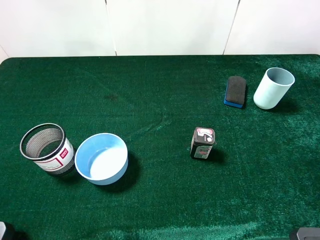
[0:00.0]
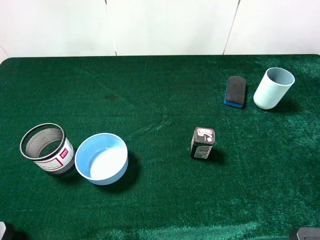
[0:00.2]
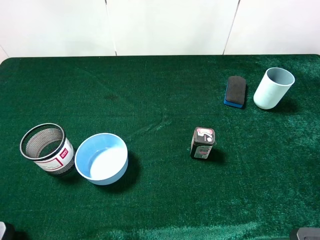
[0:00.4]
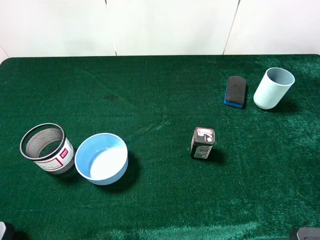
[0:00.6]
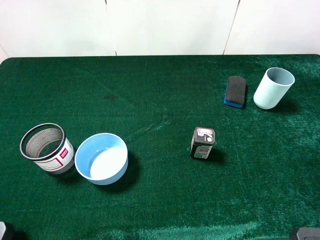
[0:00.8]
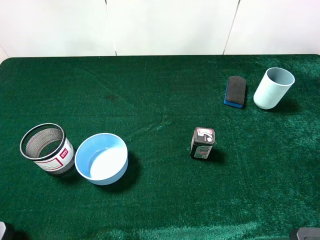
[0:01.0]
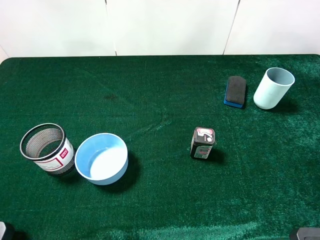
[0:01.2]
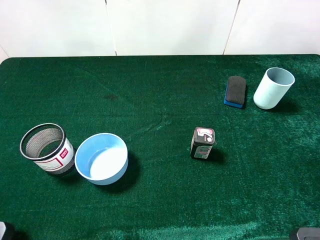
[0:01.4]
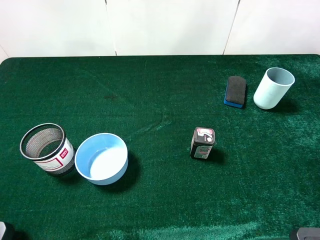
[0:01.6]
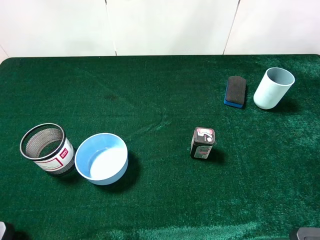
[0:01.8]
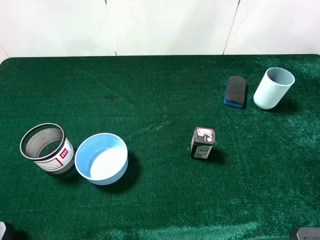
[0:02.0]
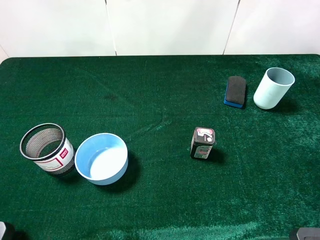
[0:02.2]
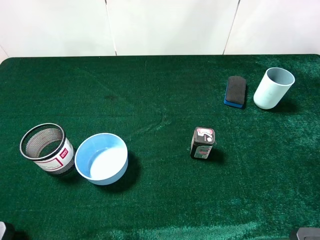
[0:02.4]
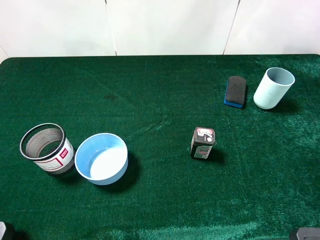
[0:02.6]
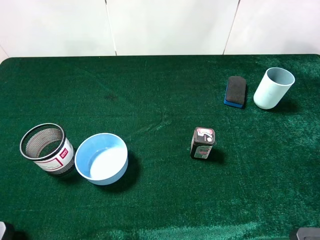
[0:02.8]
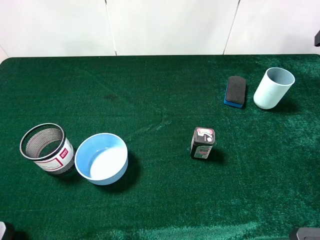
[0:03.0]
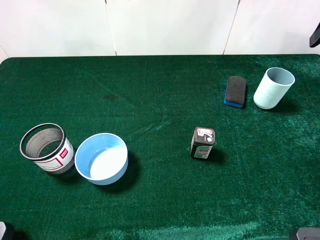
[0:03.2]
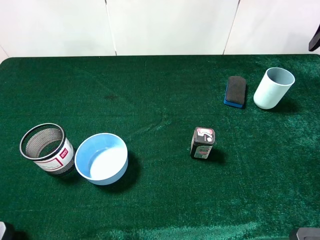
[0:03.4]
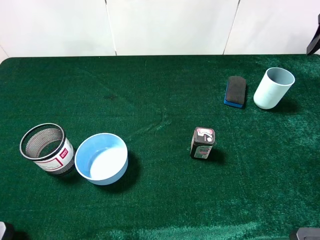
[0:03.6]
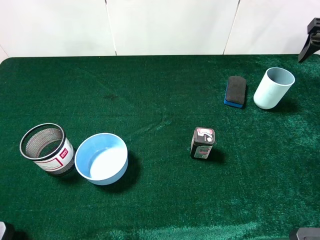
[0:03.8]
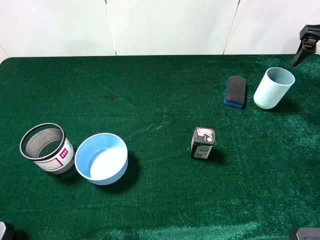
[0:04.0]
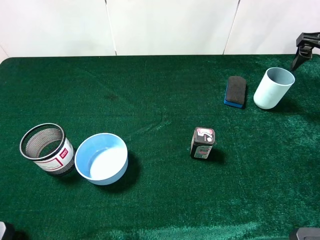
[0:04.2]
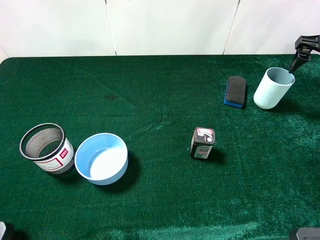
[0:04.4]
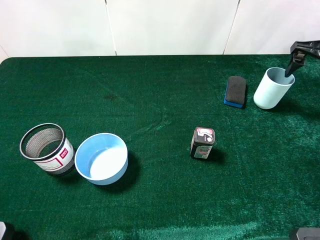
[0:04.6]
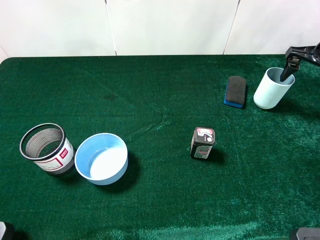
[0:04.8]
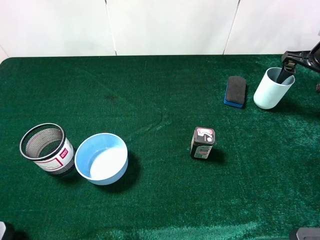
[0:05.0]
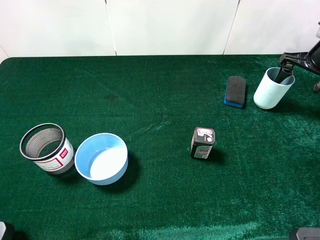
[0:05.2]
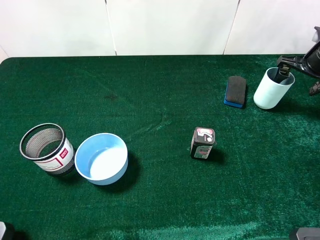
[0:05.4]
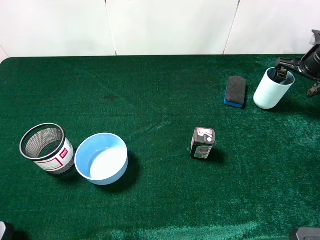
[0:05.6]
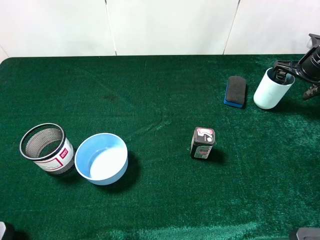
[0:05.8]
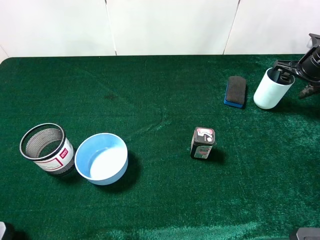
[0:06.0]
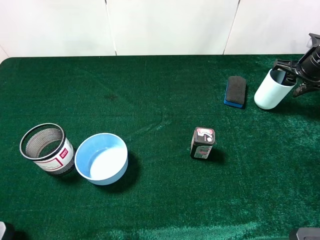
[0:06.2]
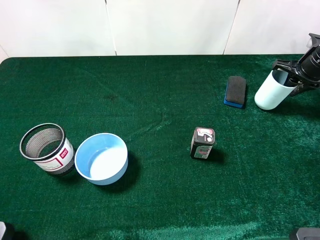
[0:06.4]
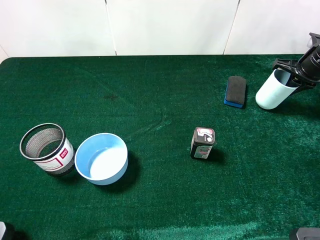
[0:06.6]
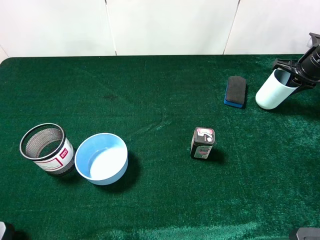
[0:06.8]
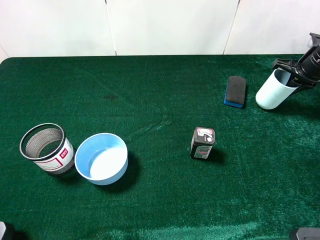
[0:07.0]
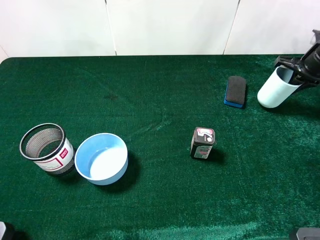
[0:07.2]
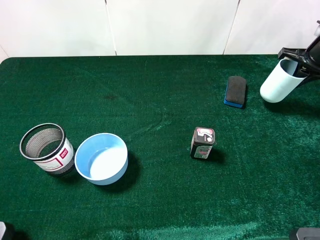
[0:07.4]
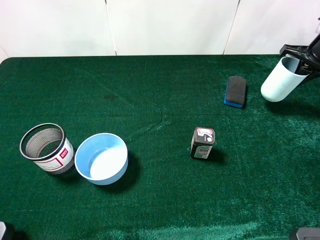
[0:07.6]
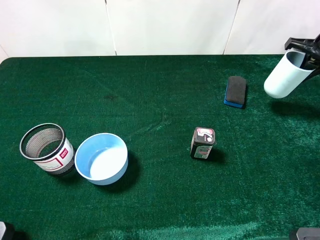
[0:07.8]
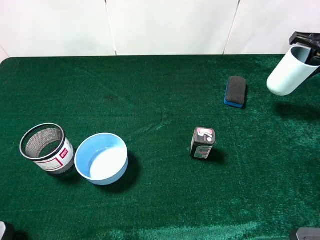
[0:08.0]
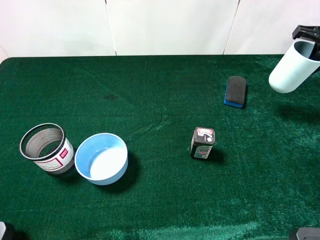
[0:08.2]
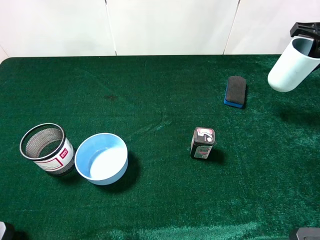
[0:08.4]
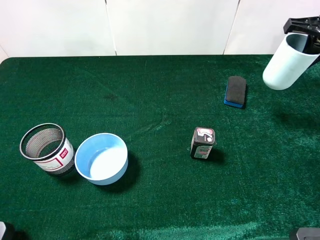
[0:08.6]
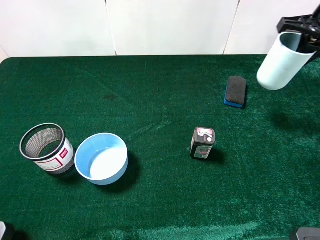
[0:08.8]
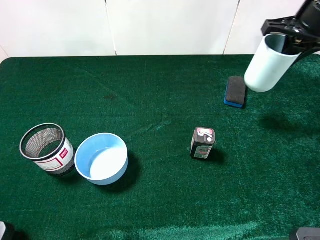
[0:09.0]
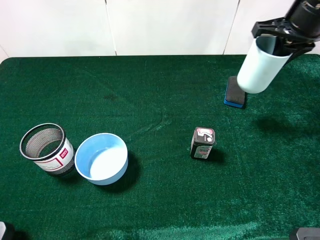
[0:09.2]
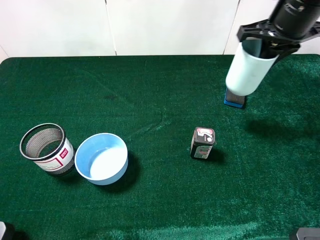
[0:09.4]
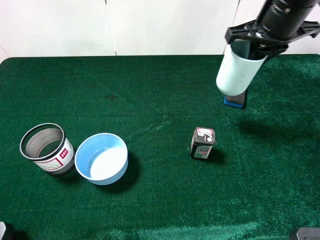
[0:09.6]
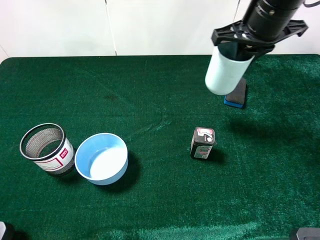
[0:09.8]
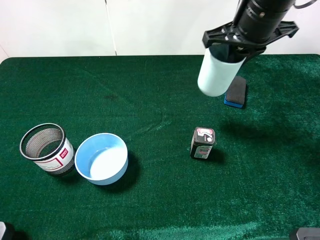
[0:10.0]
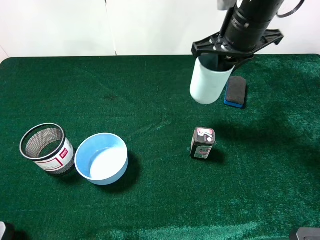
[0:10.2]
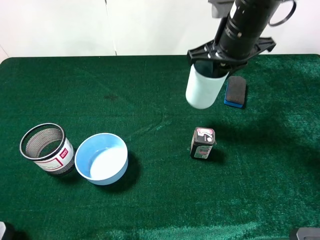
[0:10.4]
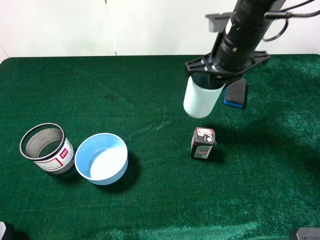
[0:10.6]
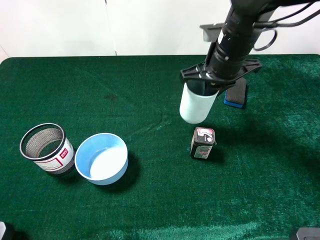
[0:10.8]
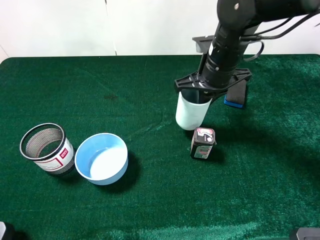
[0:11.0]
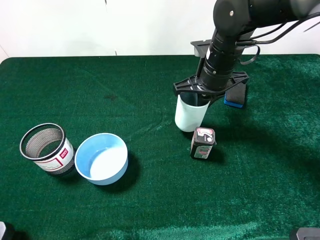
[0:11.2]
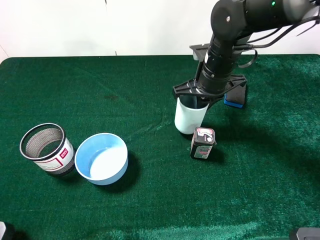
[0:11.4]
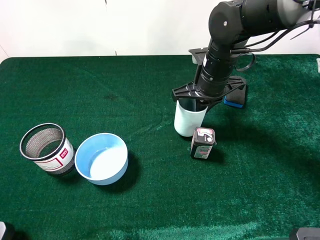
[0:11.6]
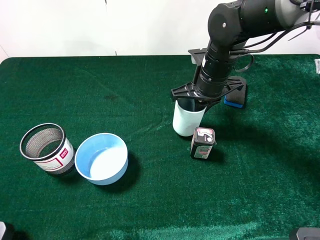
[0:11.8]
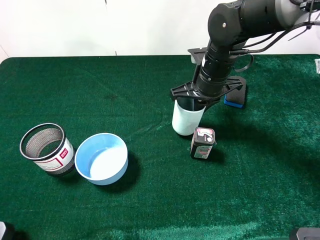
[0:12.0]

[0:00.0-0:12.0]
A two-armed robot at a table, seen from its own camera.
Task of the whole recording: the gripper move the object.
3.0 to 4.4 s: The right gripper moves downward, forward and to the right, about 15 cm.
4.4 to 6.0 s: The right gripper goes about 10 cm downward.
6.0 to 7.6 s: The right gripper closes.
7.6 to 9.0 s: The right gripper travels to the left and upward by about 15 cm.
9.0 to 10.4 s: The right gripper heads to the left, covering roughly 15 cm.
10.4 to 12.0 s: The right gripper travels downward by approximately 10 cm.

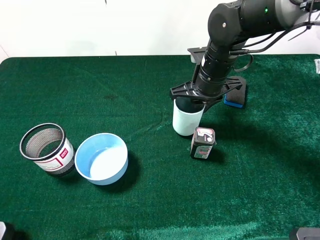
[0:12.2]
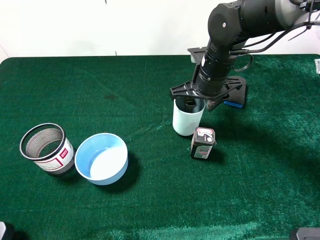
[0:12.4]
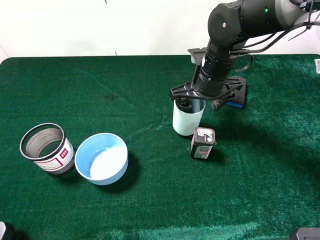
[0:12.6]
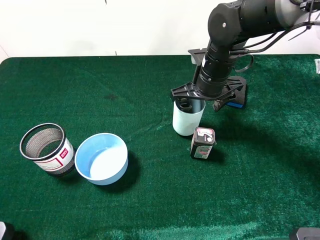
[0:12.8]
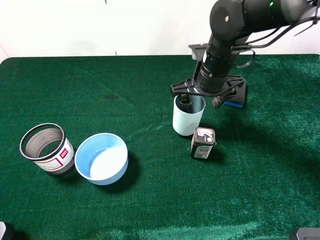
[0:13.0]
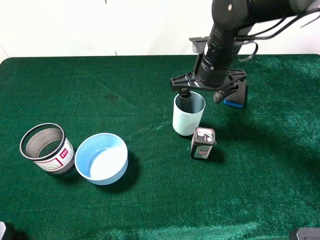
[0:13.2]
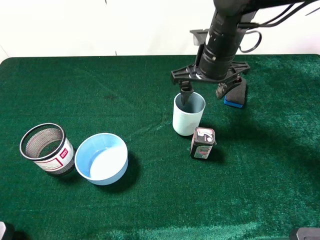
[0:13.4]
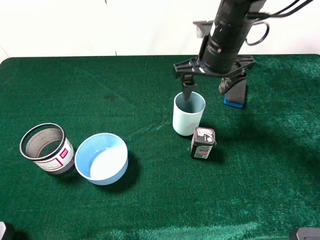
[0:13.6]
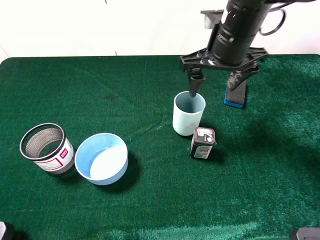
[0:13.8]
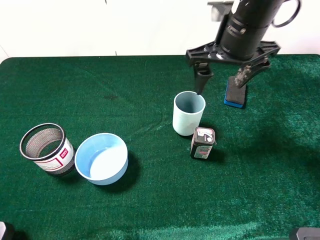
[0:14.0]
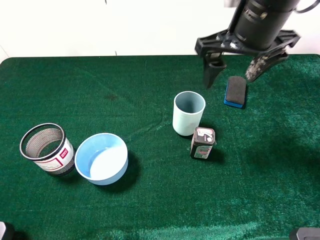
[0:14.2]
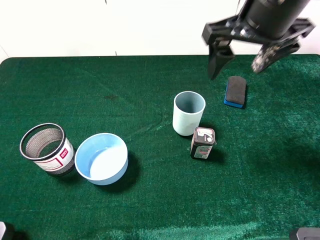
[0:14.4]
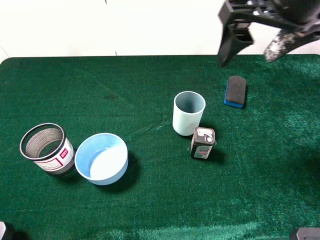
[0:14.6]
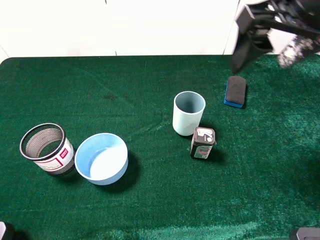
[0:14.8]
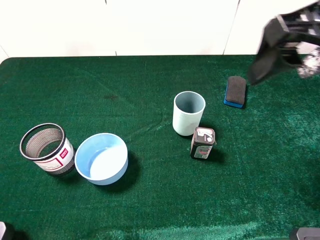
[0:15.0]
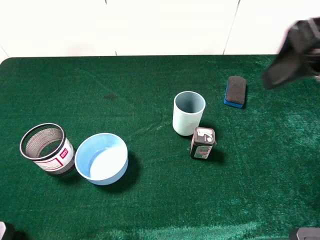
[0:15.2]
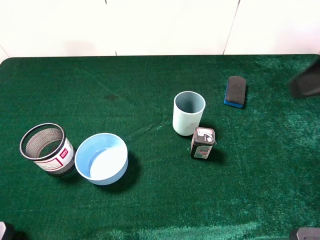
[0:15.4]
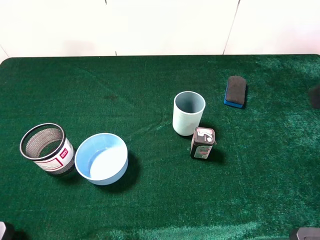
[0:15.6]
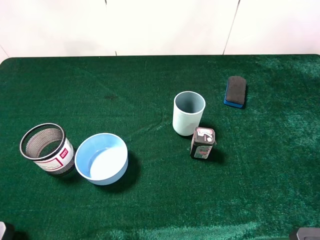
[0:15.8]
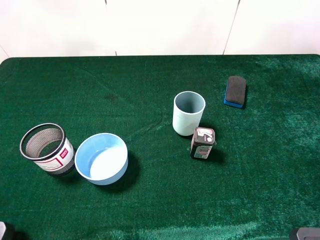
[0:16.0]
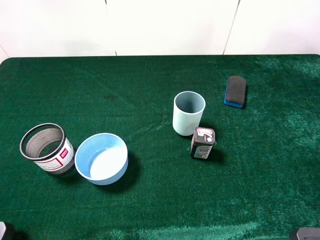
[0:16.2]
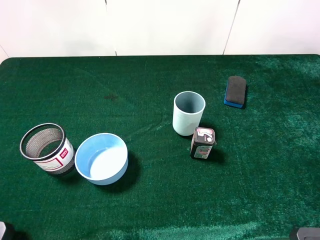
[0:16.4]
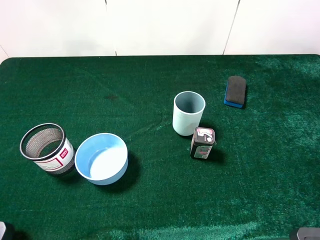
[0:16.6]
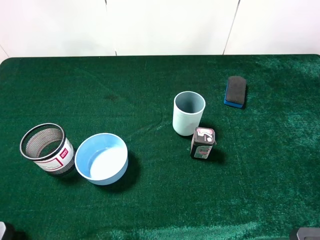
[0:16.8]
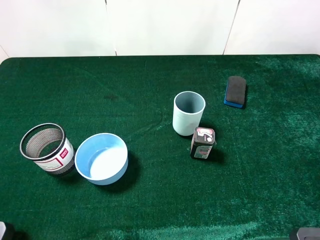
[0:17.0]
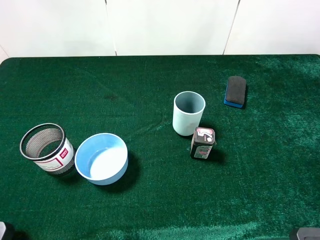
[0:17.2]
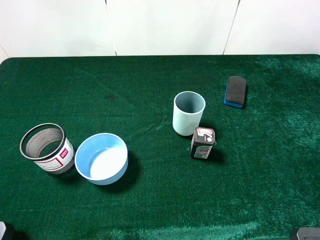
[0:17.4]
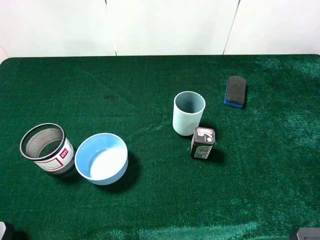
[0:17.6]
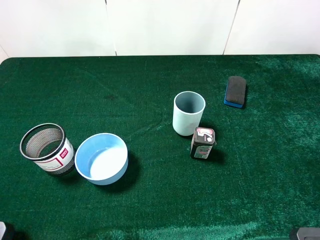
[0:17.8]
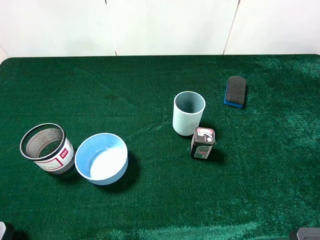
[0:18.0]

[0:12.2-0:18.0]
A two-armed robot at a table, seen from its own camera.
Task of the whole recording: the gripper move the object.
12.2 to 13.6 s: The right gripper heads upward, covering some 5 cm, and opens up.
13.6 to 15.0 s: The right gripper goes approximately 20 cm backward, upward and to the right.
15.0 to 16.6 s: The right gripper heads backward and to the right, covering about 20 cm.
16.6 to 18.0 s: Neither gripper changes place.

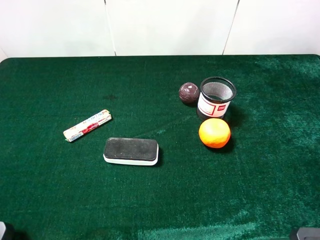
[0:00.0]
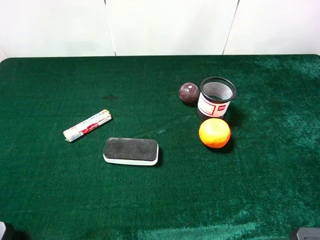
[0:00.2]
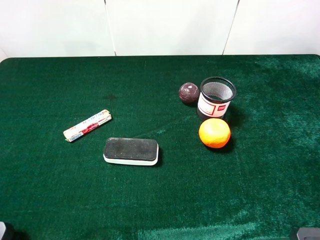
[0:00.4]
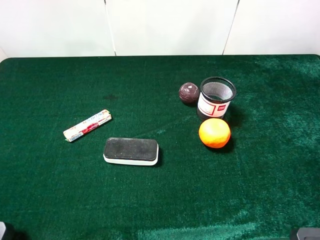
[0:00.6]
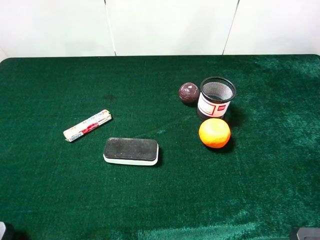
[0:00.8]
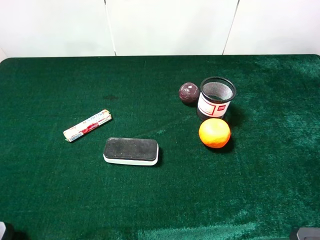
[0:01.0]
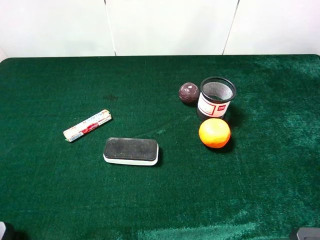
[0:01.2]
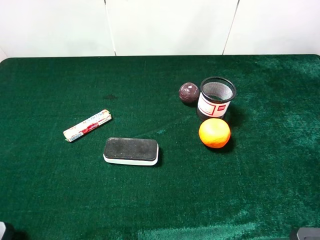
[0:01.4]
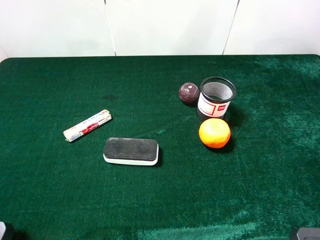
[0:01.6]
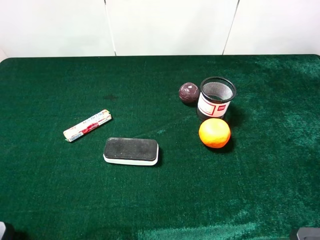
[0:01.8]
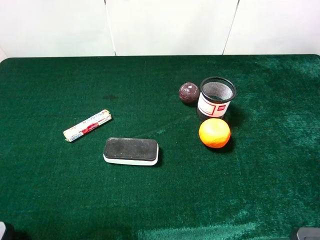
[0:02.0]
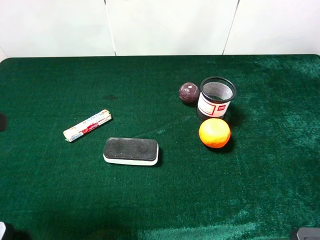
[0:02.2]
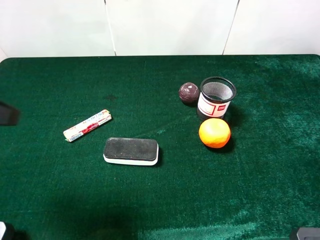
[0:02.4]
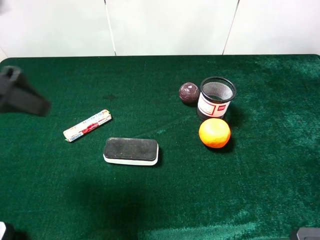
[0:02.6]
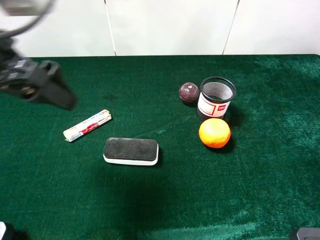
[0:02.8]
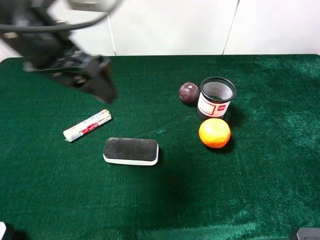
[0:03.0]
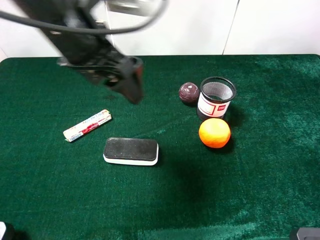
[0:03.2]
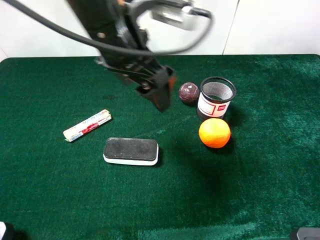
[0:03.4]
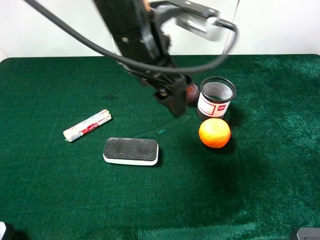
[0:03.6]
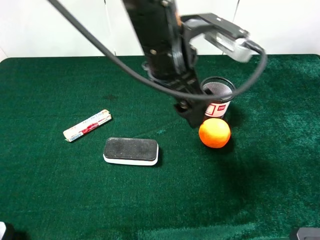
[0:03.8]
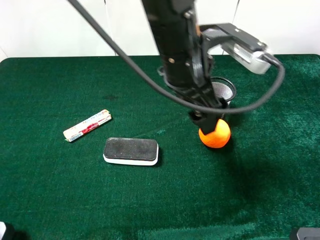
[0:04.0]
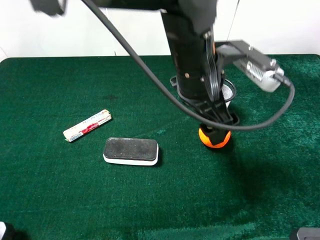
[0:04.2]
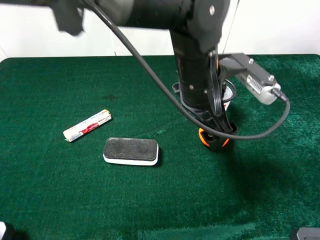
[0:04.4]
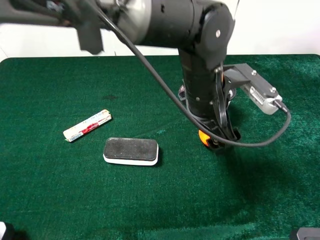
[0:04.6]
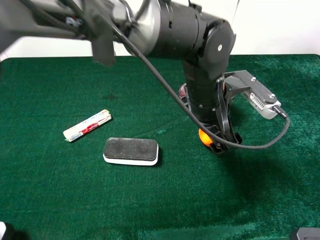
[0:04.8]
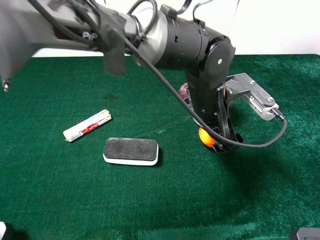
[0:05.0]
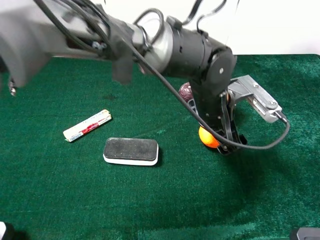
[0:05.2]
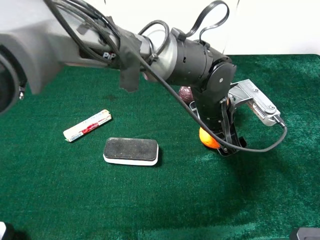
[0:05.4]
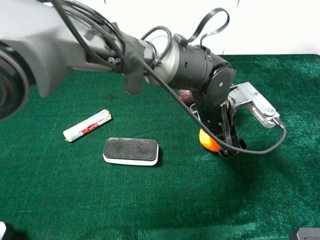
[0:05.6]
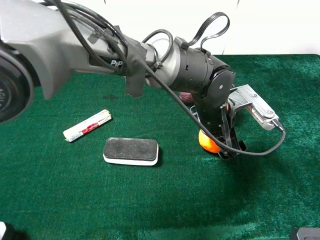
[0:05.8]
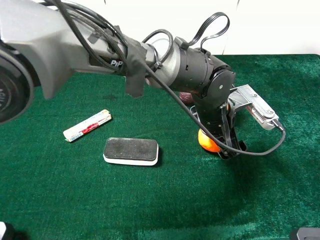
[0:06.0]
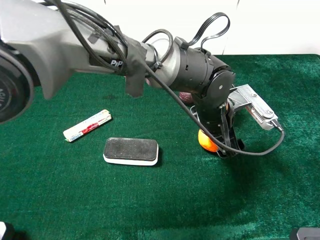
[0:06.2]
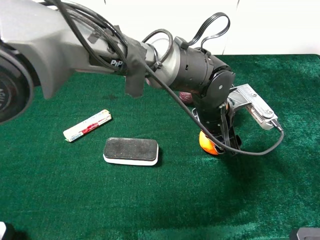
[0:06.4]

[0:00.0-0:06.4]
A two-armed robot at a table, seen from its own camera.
Task of the whole recording: the gripper move the object.
1.6 to 3.2 s: The left gripper goes some 30 cm forward and to the right.
3.2 to 4.8 s: The left gripper moves to the right and downward, roughly 25 cm.
4.8 to 6.4 s: The left gripper heads downward, covering roughly 5 cm, and closes up.
